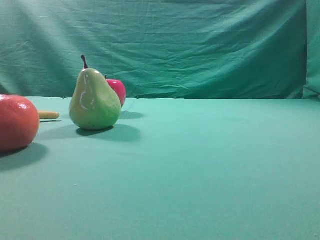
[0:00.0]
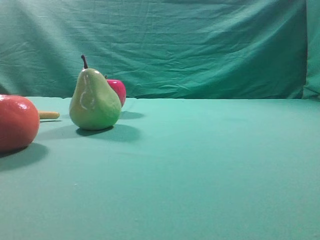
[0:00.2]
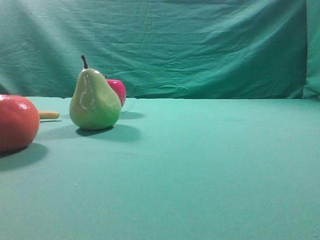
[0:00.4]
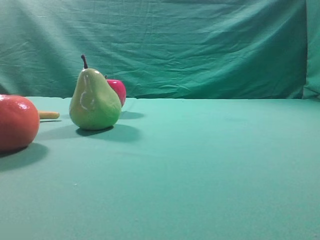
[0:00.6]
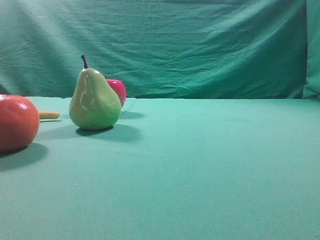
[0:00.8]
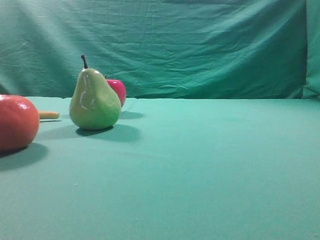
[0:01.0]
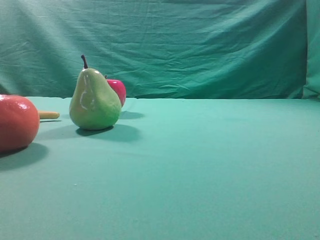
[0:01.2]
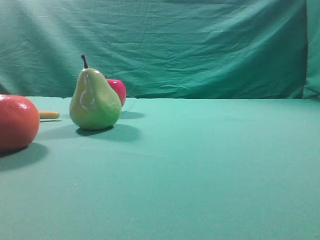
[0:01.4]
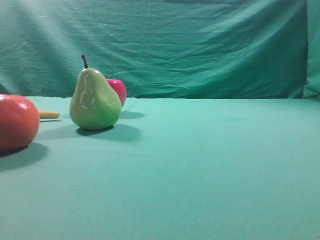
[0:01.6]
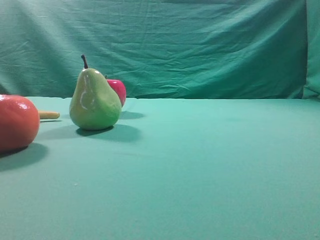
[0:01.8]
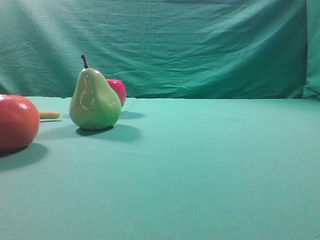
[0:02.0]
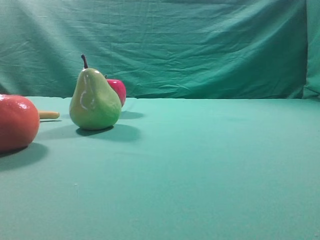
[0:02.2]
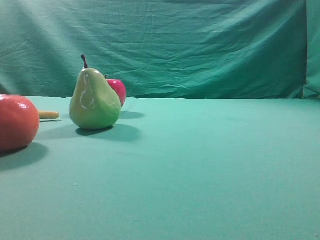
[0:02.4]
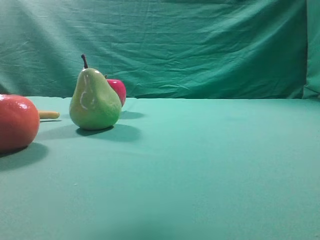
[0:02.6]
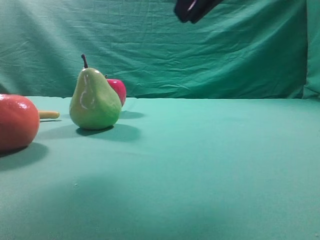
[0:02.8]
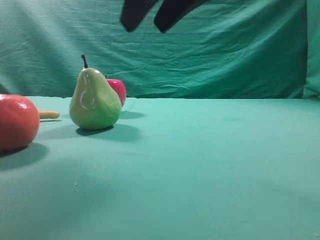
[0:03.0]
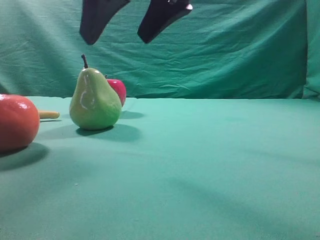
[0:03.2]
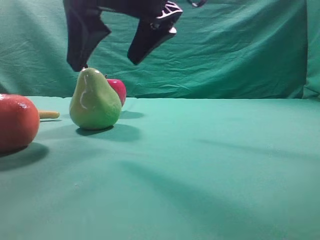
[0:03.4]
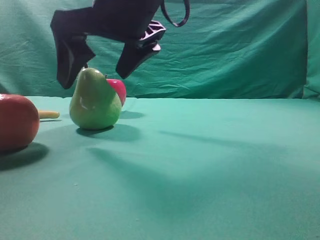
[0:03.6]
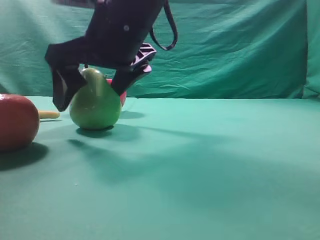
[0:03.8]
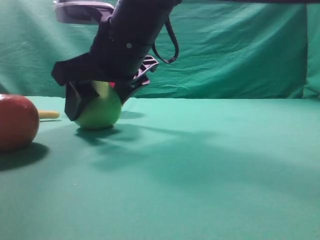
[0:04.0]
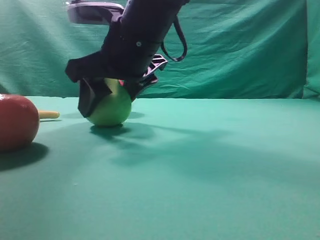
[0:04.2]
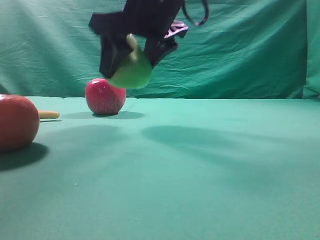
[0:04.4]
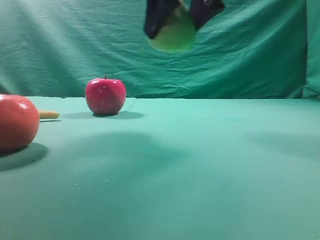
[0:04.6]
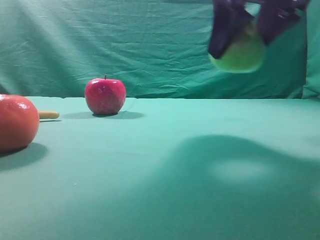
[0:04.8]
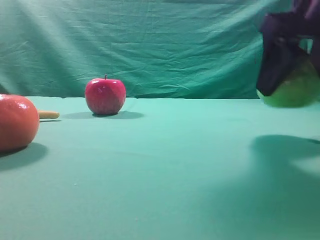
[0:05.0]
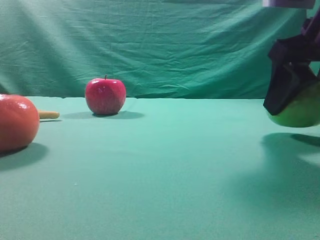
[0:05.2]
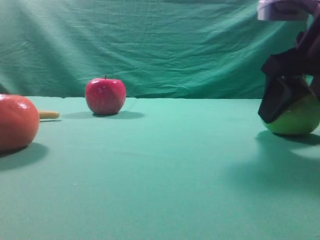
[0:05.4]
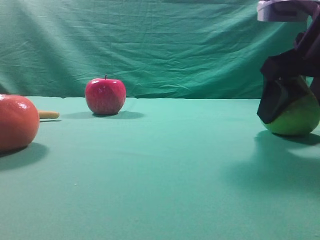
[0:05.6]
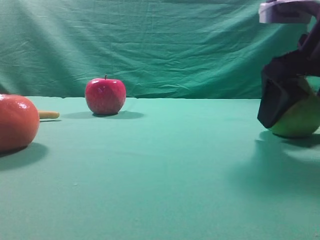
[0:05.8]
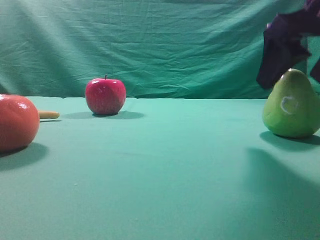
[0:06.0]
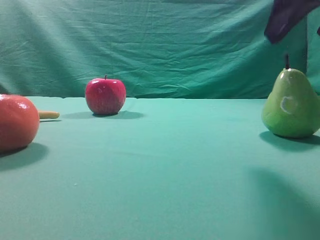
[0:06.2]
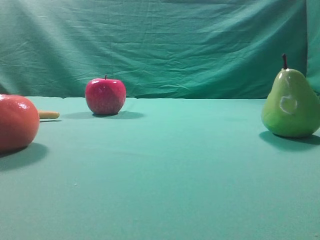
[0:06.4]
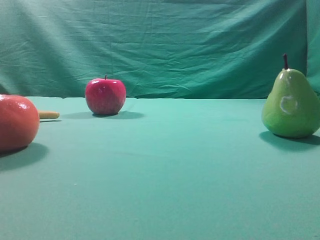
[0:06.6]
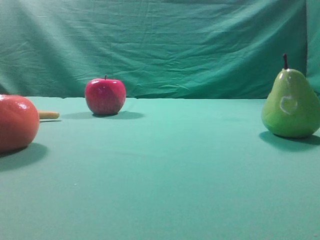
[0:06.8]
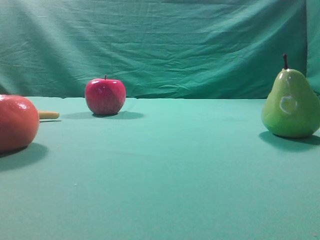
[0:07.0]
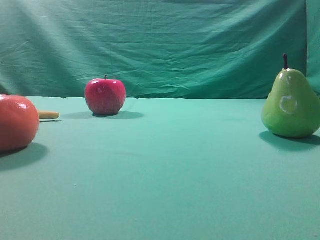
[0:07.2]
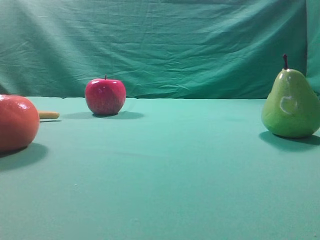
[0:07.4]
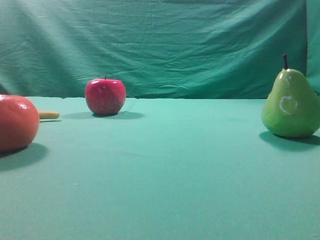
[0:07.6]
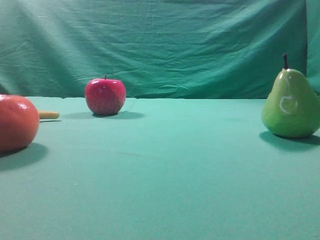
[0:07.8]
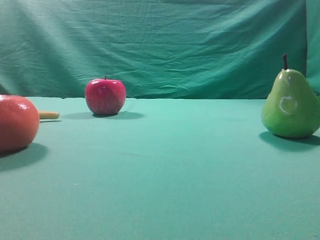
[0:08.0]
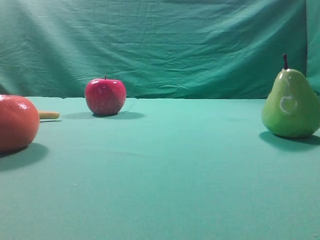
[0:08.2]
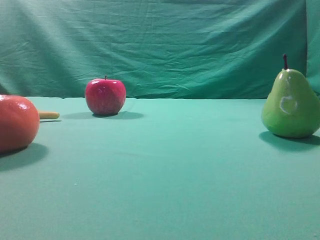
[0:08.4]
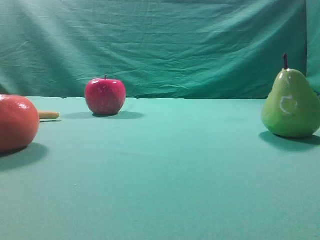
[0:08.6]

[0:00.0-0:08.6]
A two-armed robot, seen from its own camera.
Task of the whole recording: Grasp the pear and place it on one side of the table.
Step, 0:00.0 to 0:04.2: Grasp the high-fiber fruit.
Step, 0:04.4 to 0:06.0: Place it on the right side of the table.
